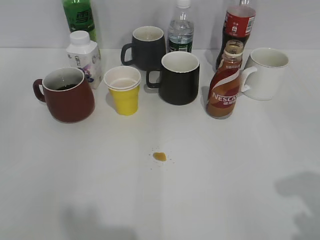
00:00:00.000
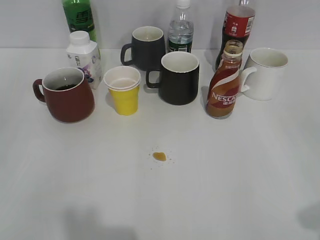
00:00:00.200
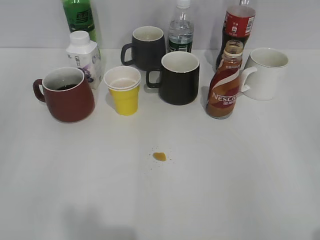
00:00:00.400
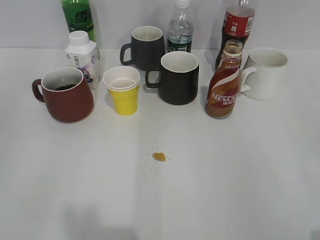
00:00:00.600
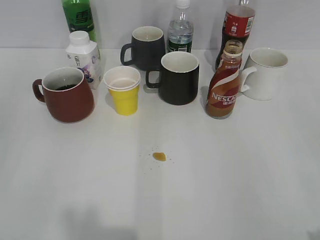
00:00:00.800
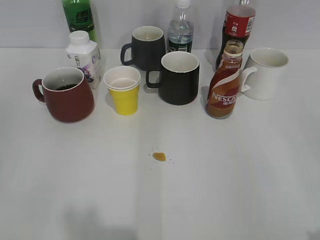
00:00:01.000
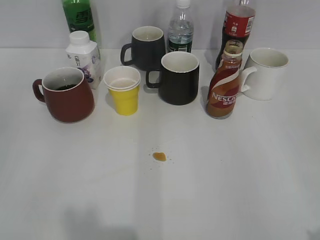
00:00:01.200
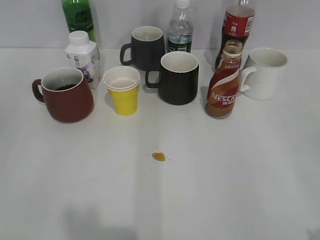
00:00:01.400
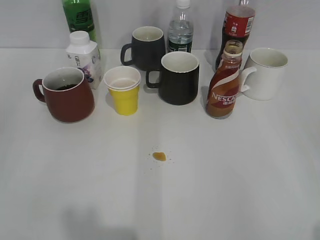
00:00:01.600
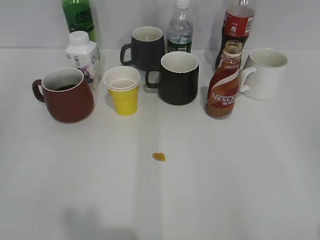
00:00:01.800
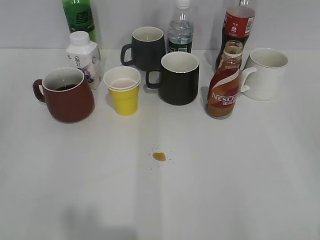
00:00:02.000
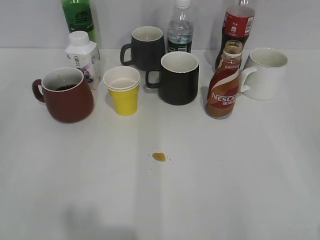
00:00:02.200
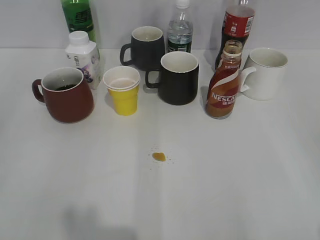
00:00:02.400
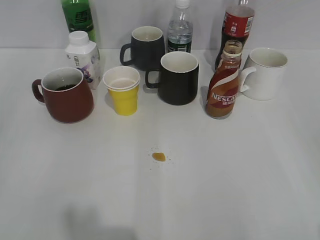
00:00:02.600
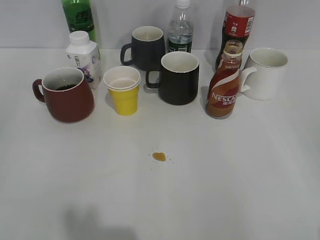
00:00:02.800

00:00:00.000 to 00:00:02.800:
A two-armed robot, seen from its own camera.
00:00:00.000 to 00:00:01.400: The right gripper is displaced backward by about 5 cm.
